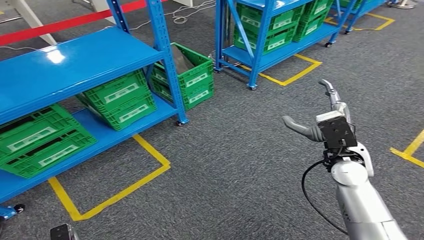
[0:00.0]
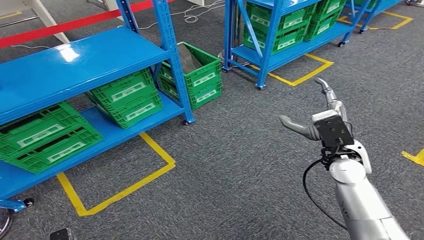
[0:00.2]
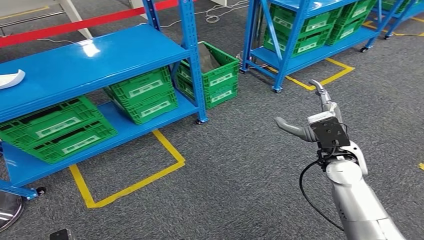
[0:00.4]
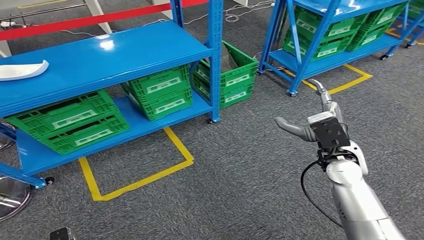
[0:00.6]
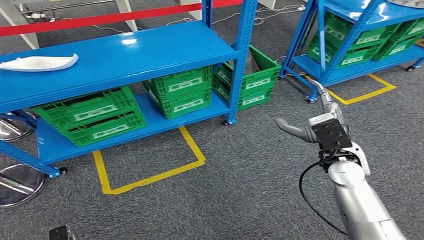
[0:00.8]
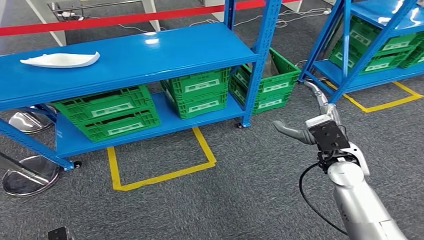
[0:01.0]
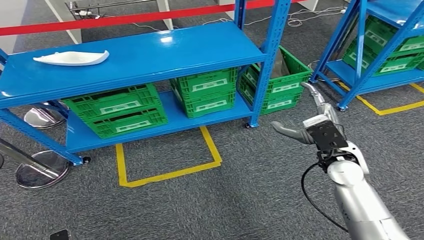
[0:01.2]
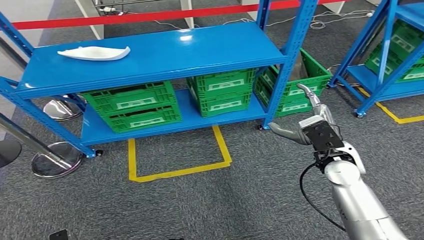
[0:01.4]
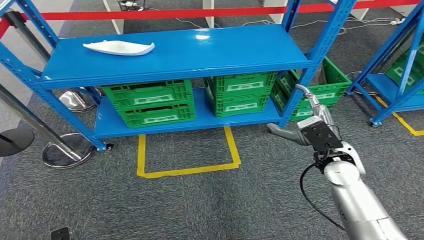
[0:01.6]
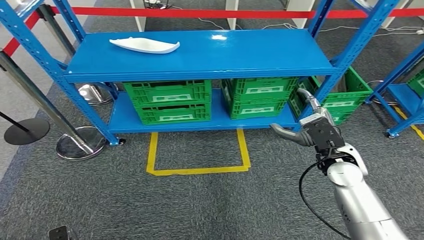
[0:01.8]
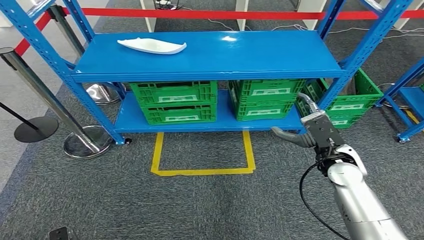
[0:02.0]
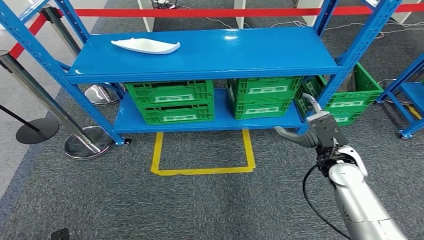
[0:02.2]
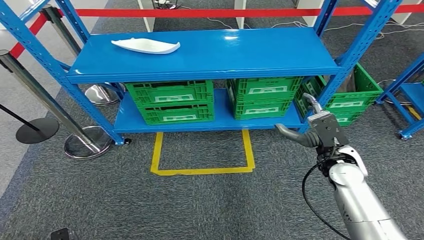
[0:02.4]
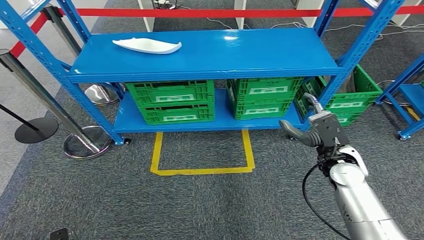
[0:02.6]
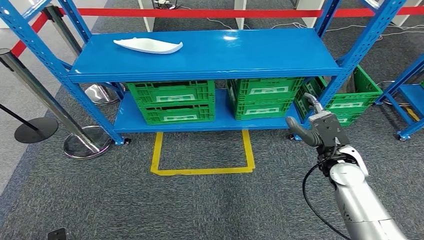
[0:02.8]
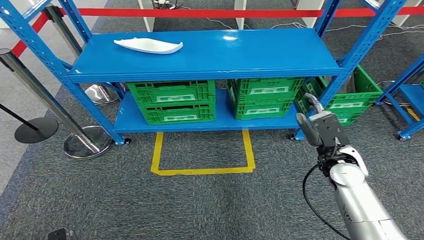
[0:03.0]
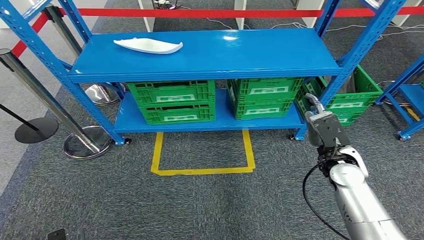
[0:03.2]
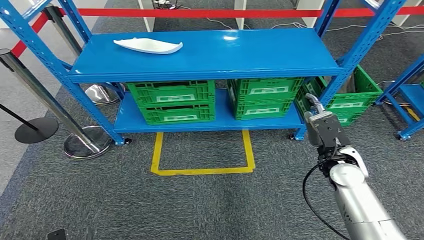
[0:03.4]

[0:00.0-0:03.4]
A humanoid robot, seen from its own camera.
Step, 0:00.0 to 0:03.2: Return to the initial position at the workbench.
